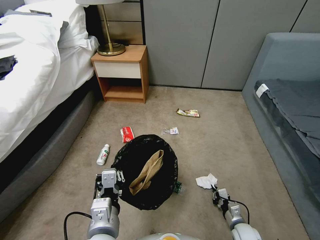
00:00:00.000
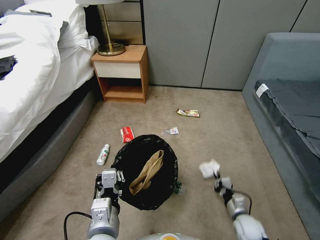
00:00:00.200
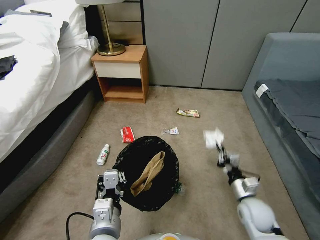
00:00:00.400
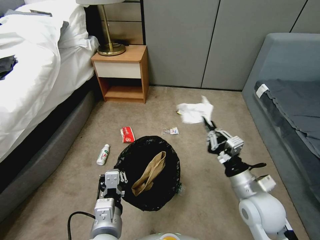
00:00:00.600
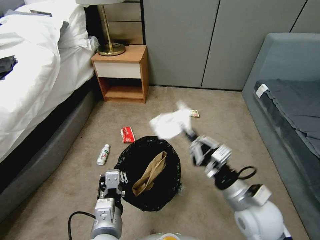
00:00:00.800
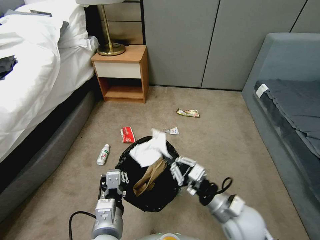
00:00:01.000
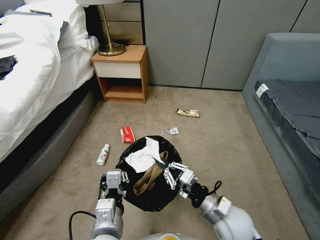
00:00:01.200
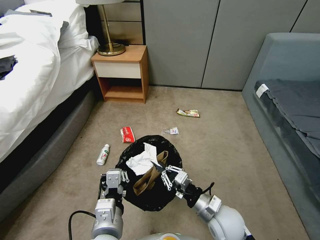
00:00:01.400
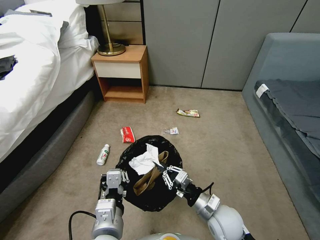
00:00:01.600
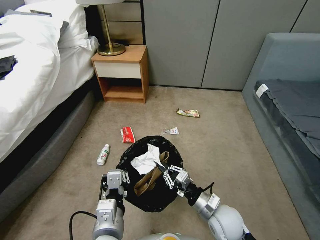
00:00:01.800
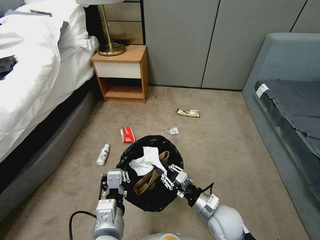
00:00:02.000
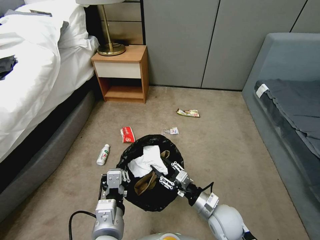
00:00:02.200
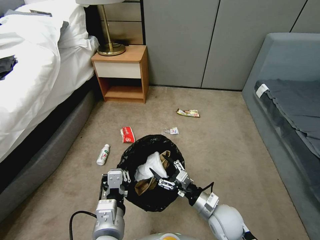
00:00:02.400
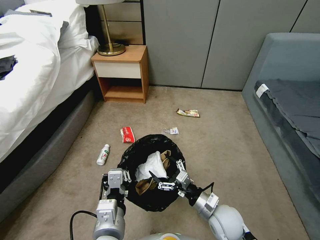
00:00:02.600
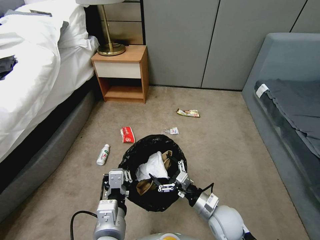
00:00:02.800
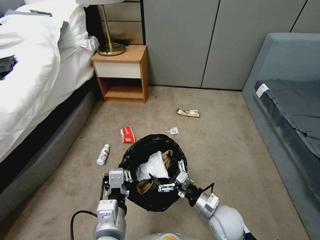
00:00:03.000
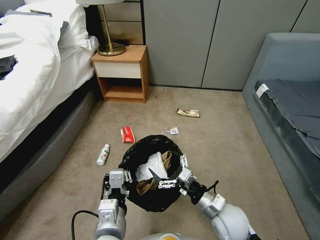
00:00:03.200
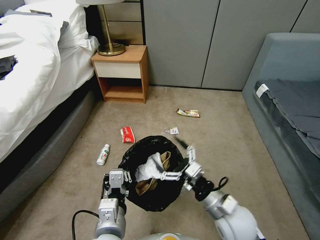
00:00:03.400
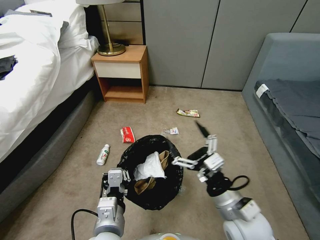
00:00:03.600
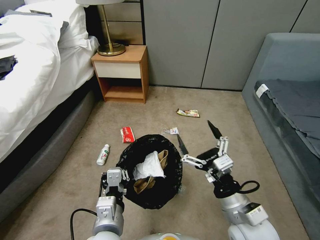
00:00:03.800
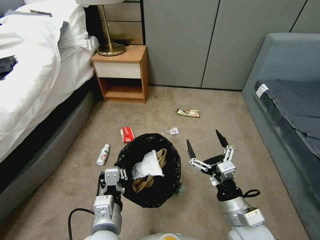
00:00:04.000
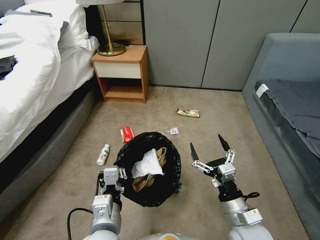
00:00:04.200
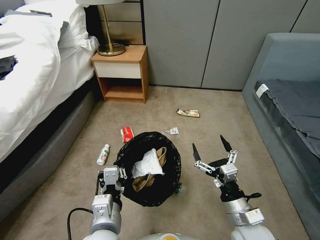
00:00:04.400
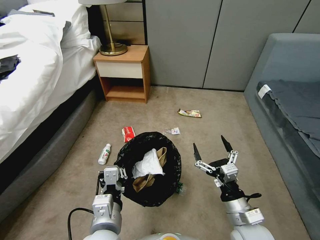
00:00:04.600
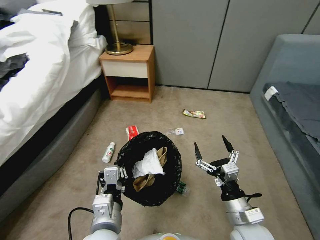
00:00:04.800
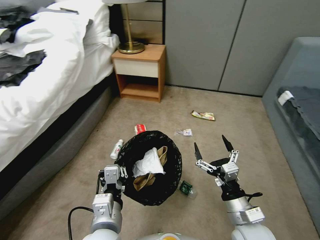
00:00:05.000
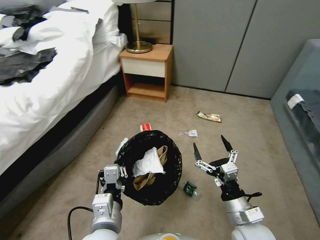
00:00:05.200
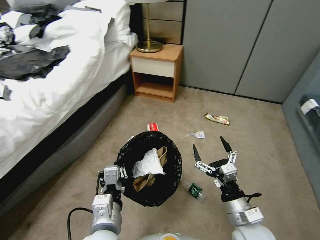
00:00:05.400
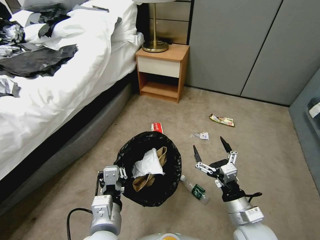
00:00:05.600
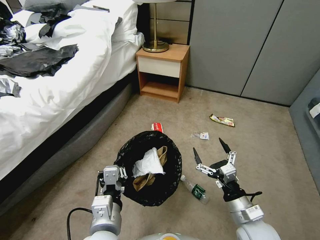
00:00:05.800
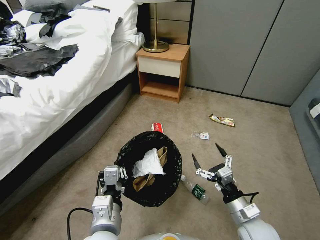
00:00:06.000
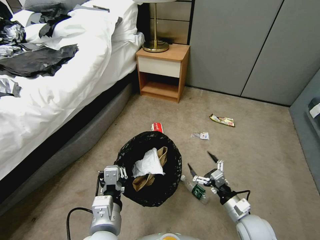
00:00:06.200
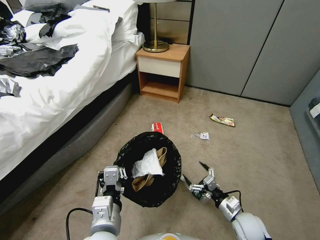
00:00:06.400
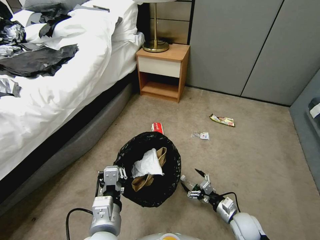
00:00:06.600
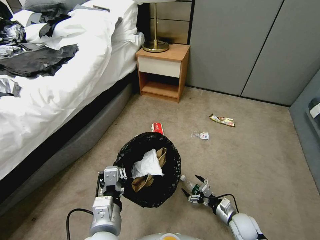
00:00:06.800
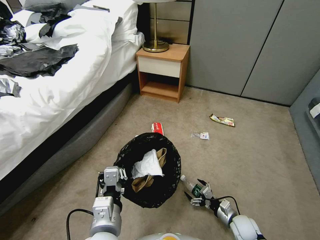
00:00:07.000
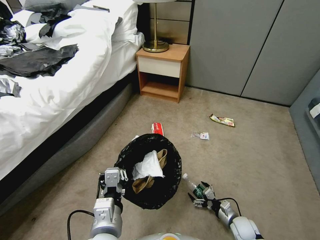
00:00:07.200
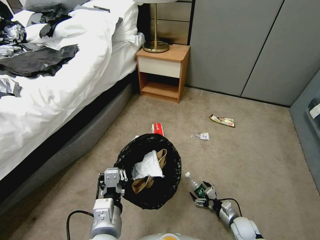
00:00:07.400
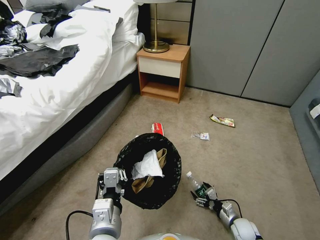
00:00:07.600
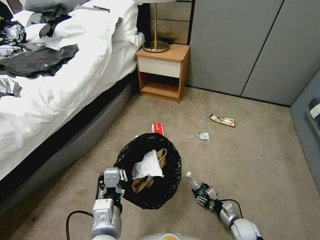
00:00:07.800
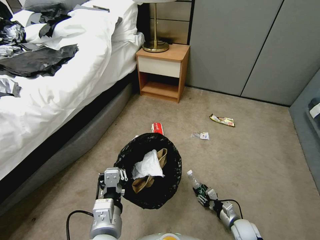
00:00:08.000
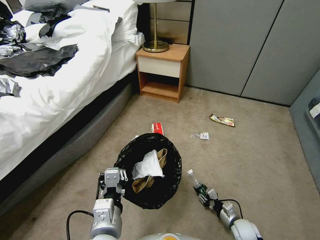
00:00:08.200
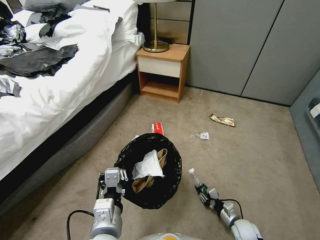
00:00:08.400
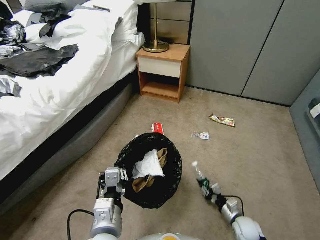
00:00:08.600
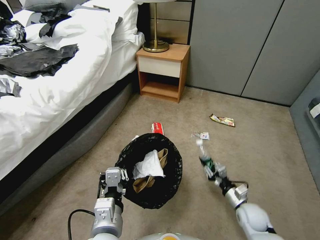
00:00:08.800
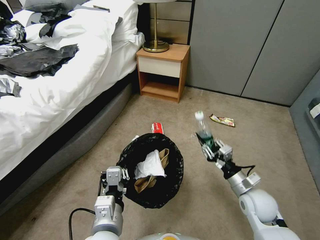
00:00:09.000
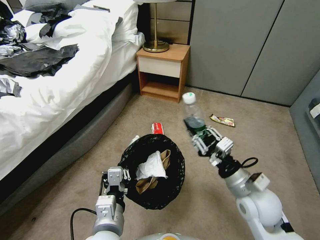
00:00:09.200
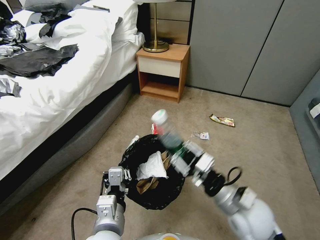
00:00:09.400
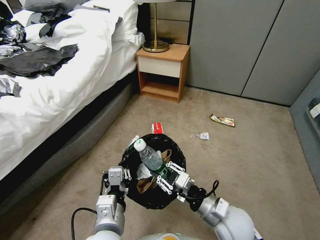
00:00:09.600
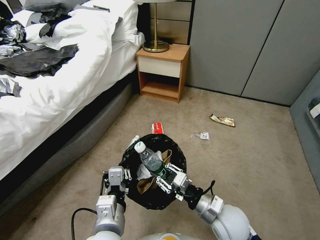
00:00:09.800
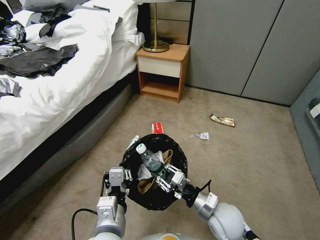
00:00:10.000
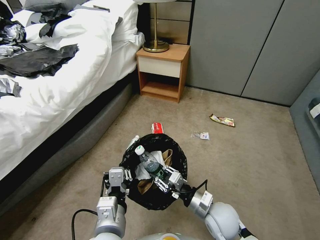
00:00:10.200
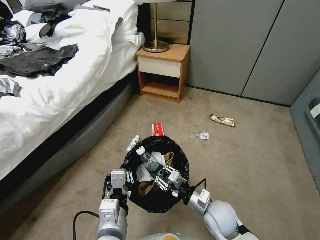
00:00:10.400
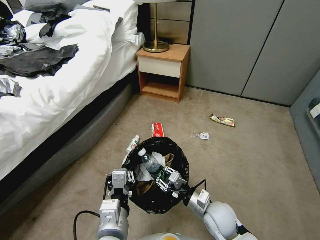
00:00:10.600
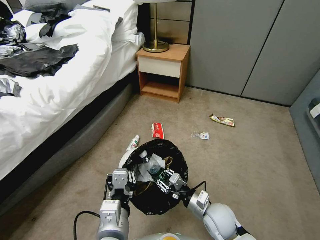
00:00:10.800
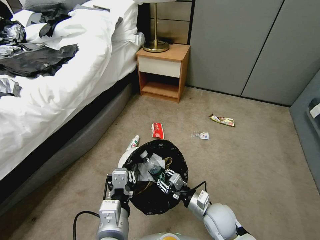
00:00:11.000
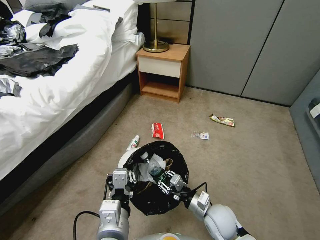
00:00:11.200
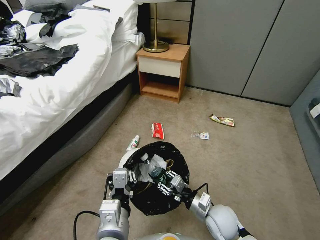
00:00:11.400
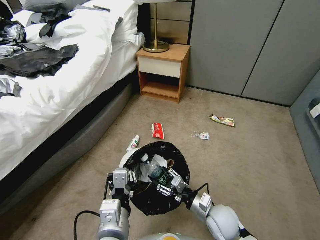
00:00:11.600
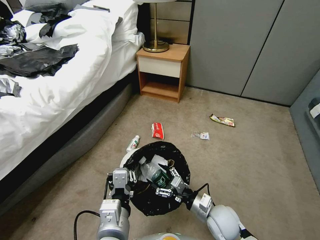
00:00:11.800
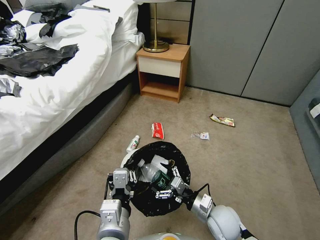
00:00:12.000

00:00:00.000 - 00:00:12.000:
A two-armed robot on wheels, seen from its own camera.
Task of the whole recording: Pick up the trash bin, then pick up the garbage from the floor and place it into the trash bin.
00:00:00.000 - 00:00:01.600: The right gripper heads upward and to the left, covering about 25 cm.
00:00:01.600 - 00:00:03.000: The right gripper opens.
00:00:03.000 - 00:00:04.400: The right gripper heads upward and backward, covering some 10 cm.
00:00:04.400 - 00:00:06.000: The right gripper goes about 5 cm downward.
00:00:06.000 - 00:00:07.600: The right gripper heads downward, covering some 20 cm.
00:00:07.600 - 00:00:09.000: The right gripper shifts about 25 cm upward, and closes.
00:00:09.000 - 00:00:10.400: The right gripper shifts roughly 10 cm to the left, and moves some 10 cm upward and comes back.
00:00:10.400 - 00:00:12.000: The right gripper opens.

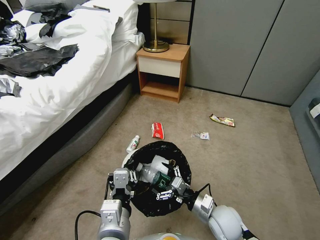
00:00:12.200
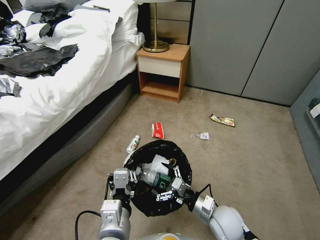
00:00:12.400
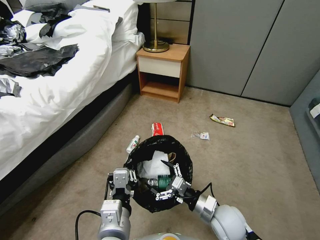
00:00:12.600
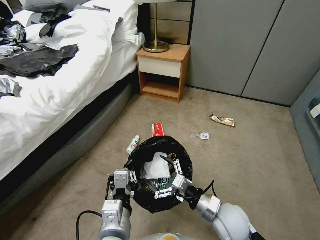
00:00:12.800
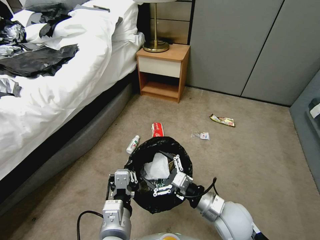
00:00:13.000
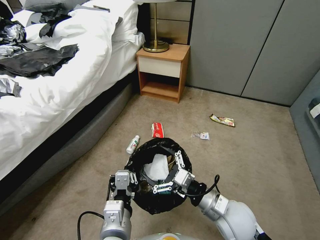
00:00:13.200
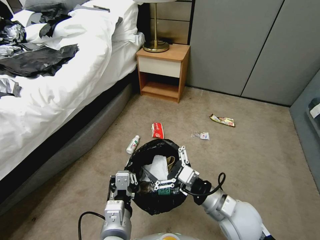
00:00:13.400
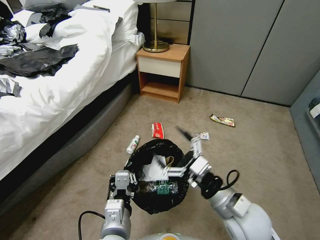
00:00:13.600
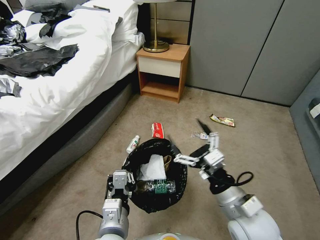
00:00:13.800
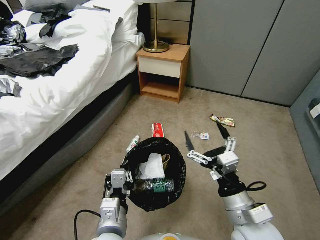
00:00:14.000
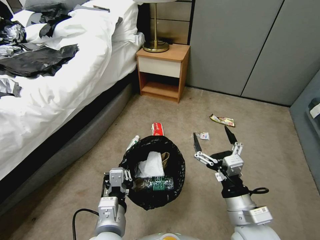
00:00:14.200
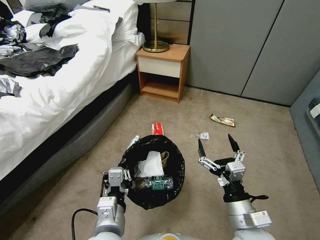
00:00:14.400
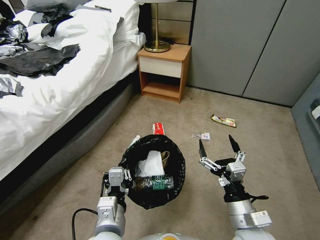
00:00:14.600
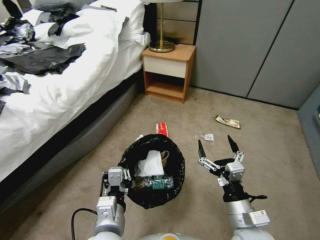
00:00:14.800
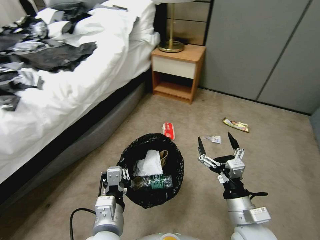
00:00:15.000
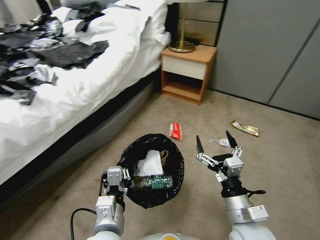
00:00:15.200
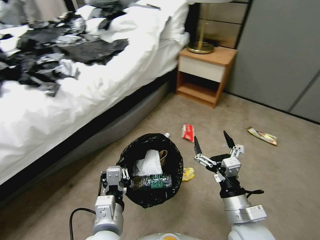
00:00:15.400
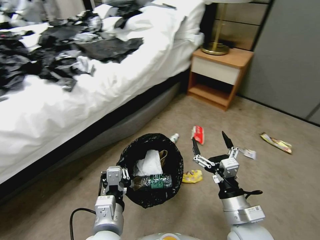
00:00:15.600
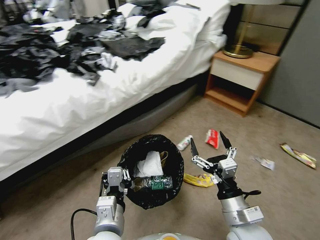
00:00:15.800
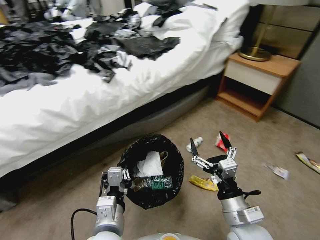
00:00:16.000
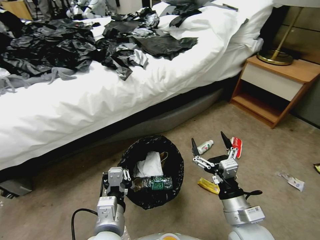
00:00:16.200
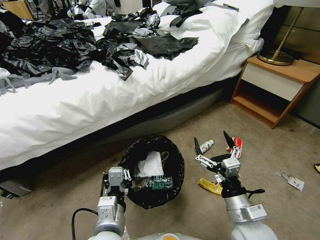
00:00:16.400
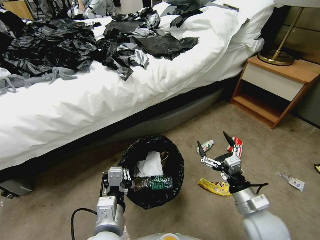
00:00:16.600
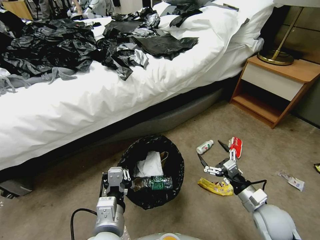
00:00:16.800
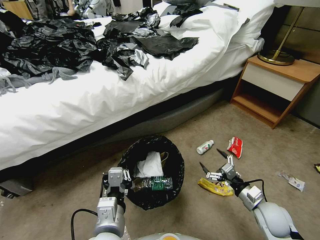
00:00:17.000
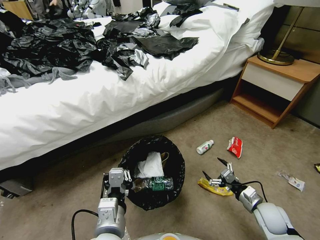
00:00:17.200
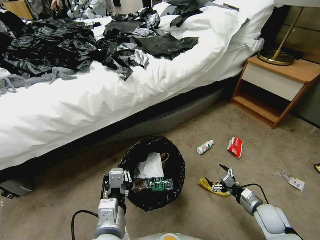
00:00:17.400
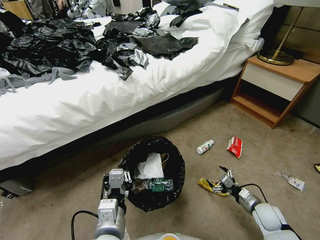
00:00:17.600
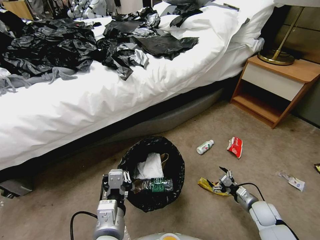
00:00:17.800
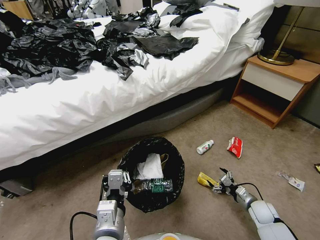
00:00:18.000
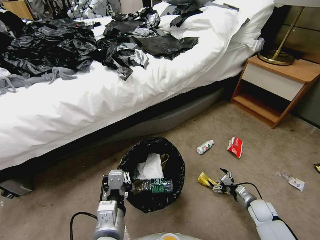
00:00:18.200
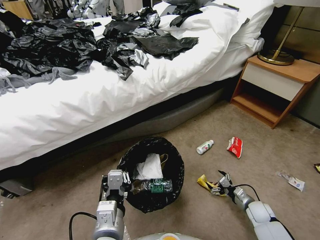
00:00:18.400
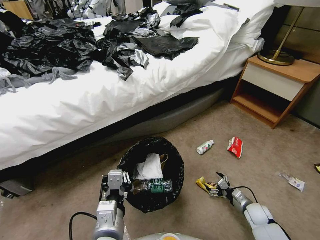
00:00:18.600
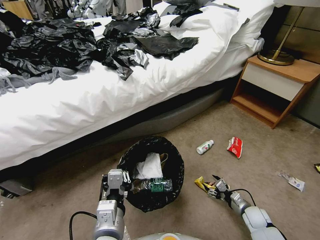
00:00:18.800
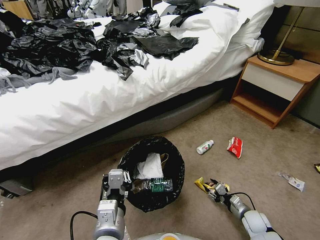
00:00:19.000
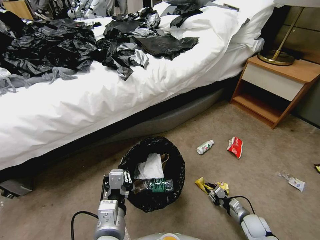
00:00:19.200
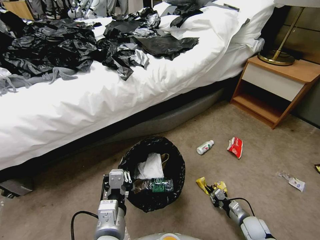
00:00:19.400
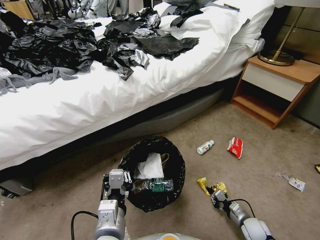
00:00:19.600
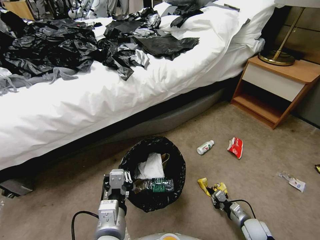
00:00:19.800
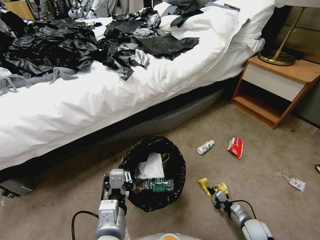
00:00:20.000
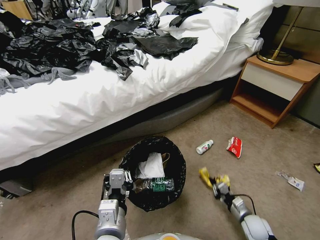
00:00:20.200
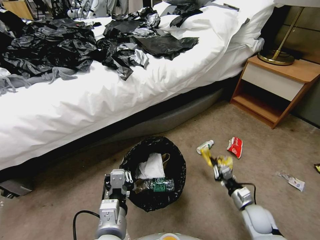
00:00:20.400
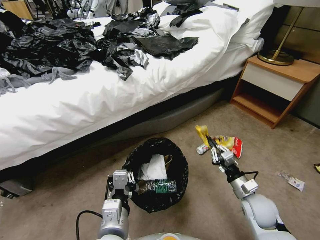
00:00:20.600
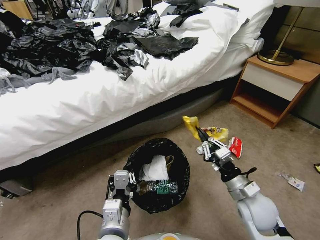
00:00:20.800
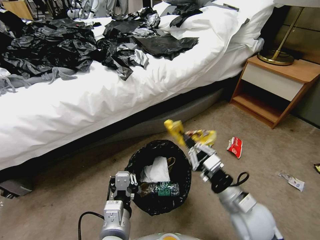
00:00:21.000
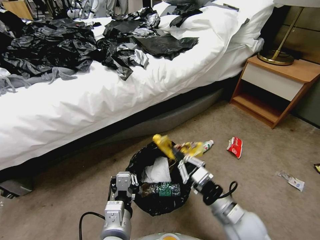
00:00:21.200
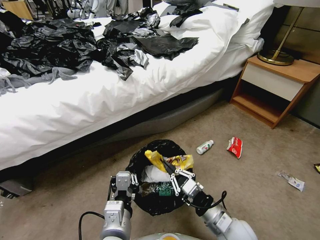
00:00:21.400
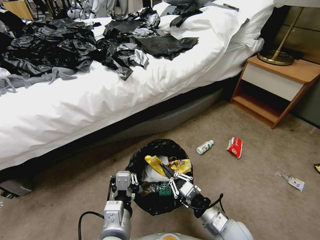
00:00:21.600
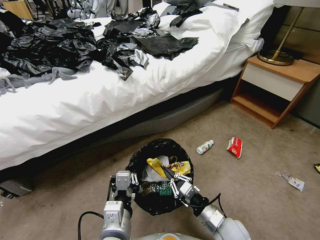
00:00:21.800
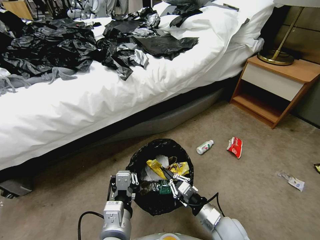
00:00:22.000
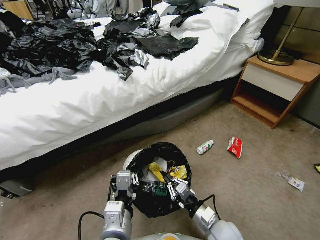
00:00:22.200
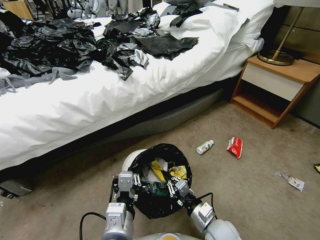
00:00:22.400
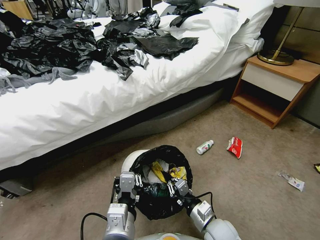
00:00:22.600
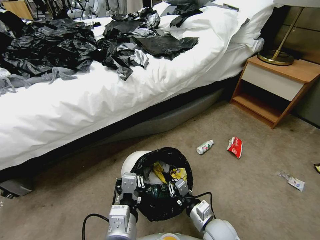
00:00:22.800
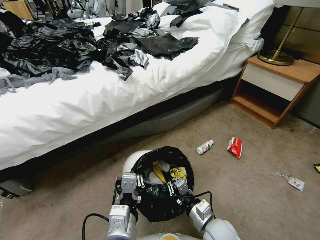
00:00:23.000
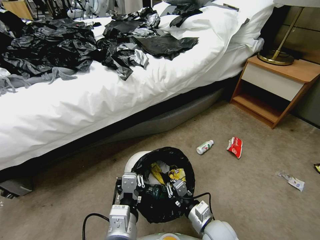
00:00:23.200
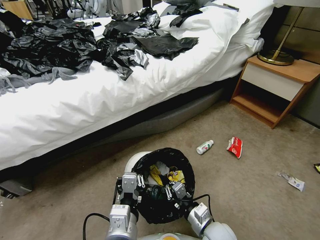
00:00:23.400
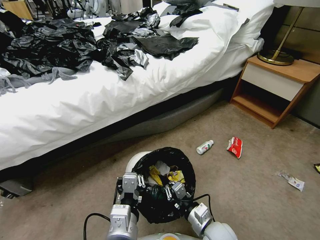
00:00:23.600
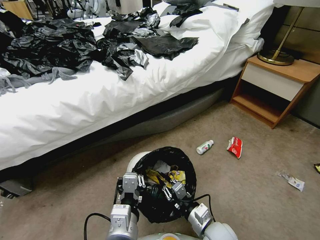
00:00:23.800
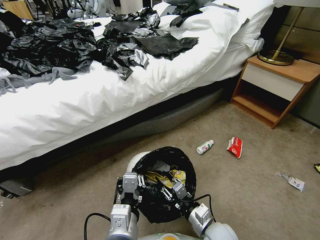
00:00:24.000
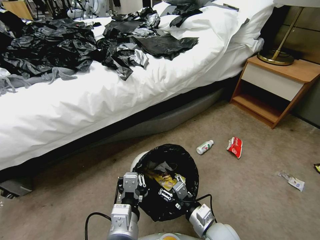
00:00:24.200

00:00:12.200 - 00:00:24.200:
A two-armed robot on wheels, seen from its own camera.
Task of the whole recording: Pick up the trash bin, then pick up the garbage from the floor and place it into the trash bin.
00:00:12.200 - 00:00:13.800: The right gripper goes approximately 15 cm upward.
00:00:15.200 - 00:00:16.600: The right gripper goes roughly 5 cm to the right.
00:00:16.600 - 00:00:18.200: The right gripper heads downward, to the right and forward, covering some 30 cm.
00:00:18.200 - 00:00:19.800: The right gripper is displaced backward by approximately 5 cm, and closes its fingers.
00:00:19.800 - 00:00:21.200: The right gripper travels upward and to the left by some 30 cm.
00:00:21.200 - 00:00:22.600: The right gripper travels downward by some 10 cm.
00:00:22.600 - 00:00:24.200: The right gripper opens.
